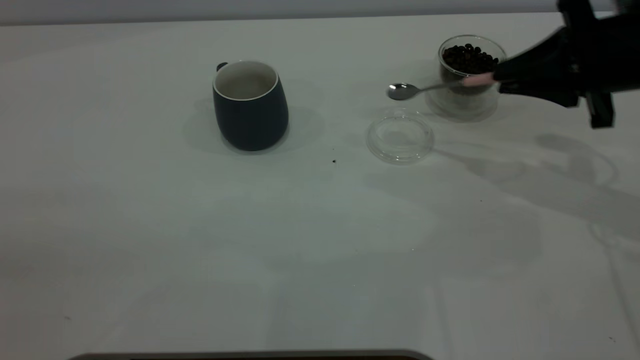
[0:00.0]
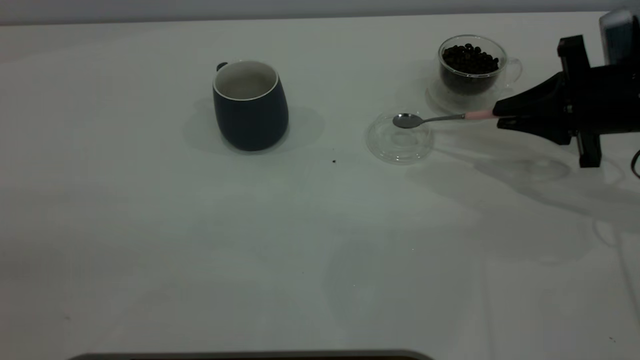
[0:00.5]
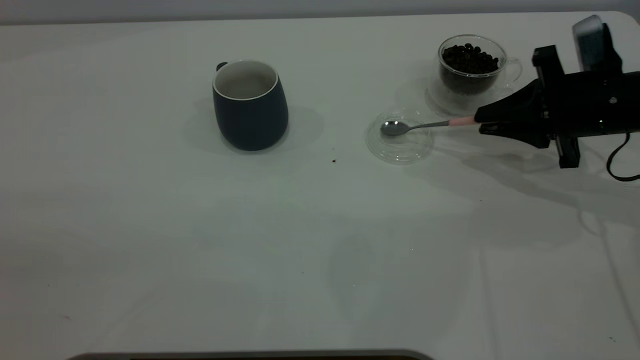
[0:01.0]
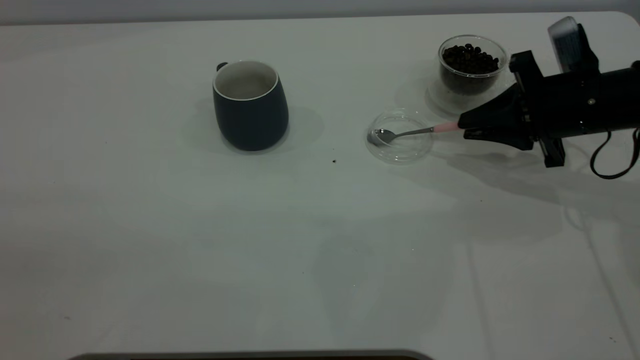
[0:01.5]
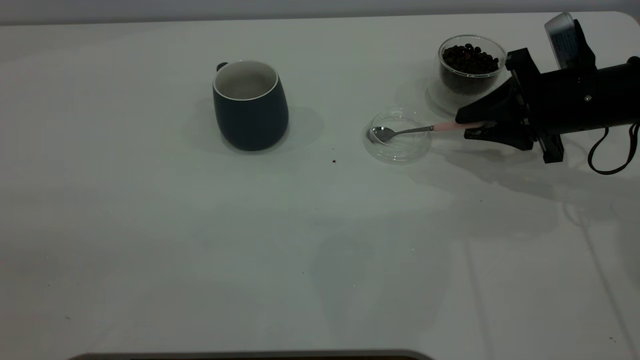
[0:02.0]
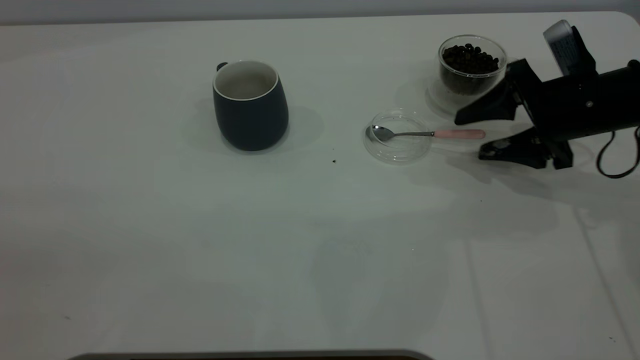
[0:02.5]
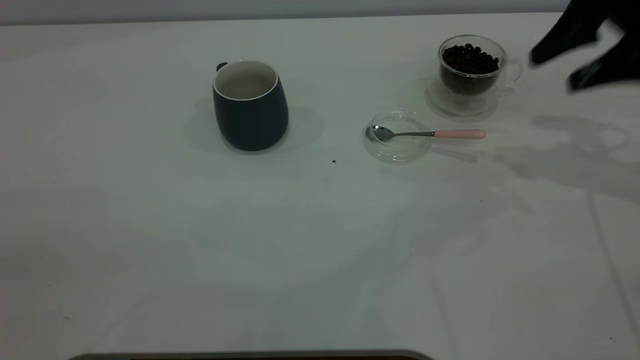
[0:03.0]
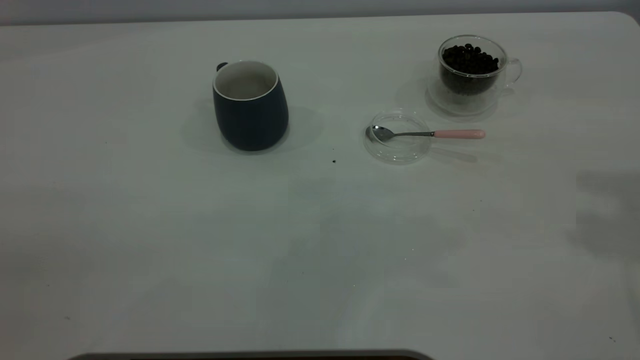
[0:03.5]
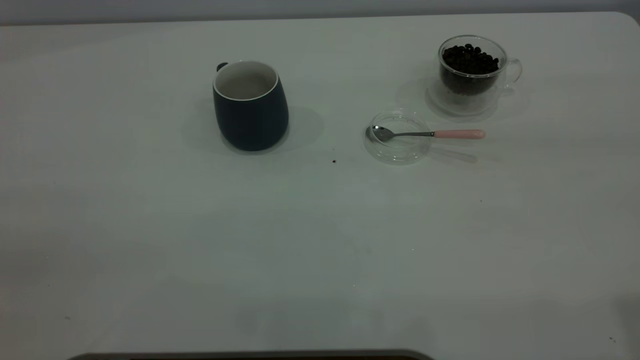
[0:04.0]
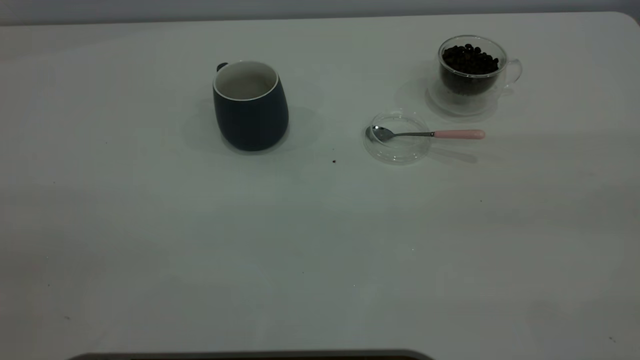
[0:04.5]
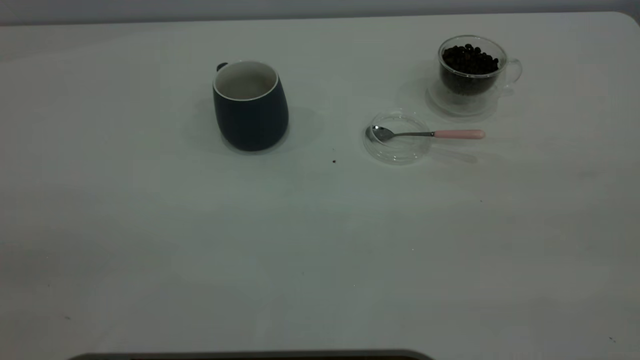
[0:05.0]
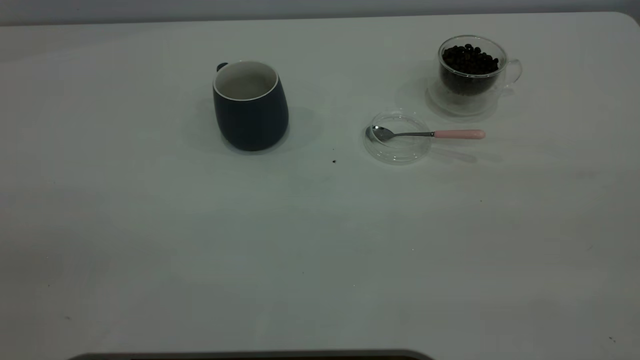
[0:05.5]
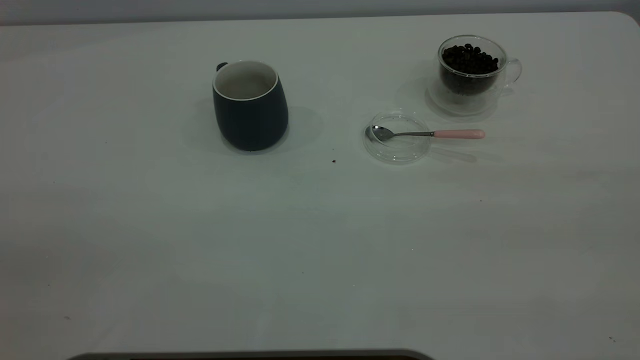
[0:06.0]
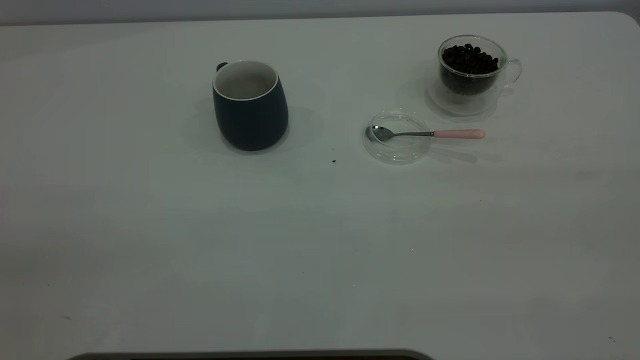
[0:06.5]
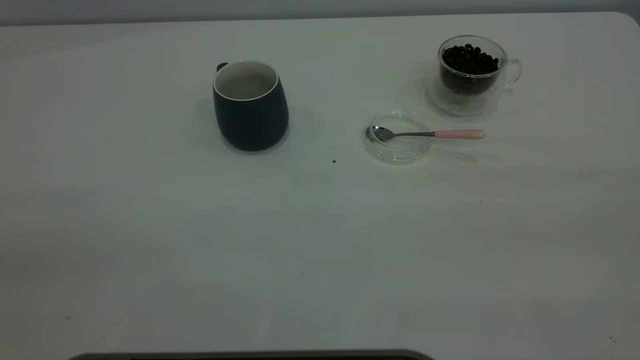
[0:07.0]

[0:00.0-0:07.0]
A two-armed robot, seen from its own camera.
Task of the whole recording: the left gripper place the grey cup in the center of the table, the right gripper take the pink spoon from the cup lid and scoop out the coffee beans from the coffee cup and put them into the grey cup, the right gripper put the spoon back into the cup lid.
Step, 0:00.0 to 0:02.5: Place the spoon back in its original place.
0:00.0 to 0:02.0: The right gripper moves downward, about 5 cm, and opens up.
0:02.0 to 0:03.5: The right gripper is displaced upward by roughly 30 cm, and opens up.
